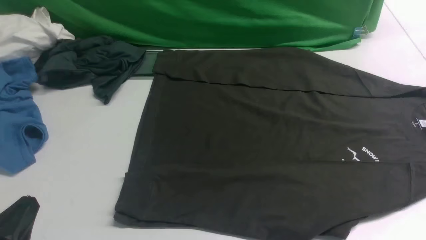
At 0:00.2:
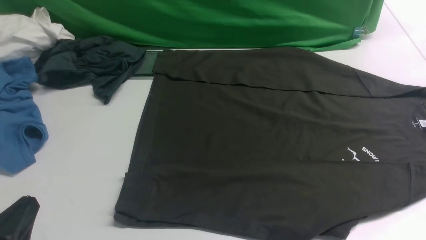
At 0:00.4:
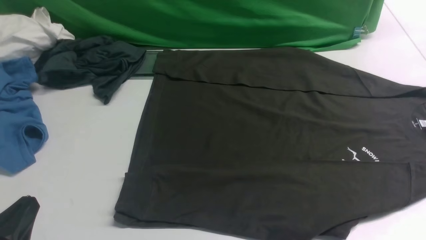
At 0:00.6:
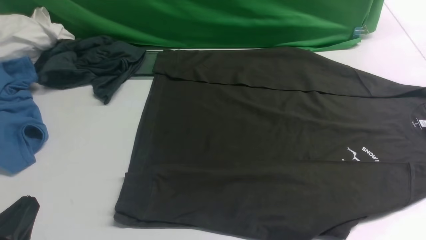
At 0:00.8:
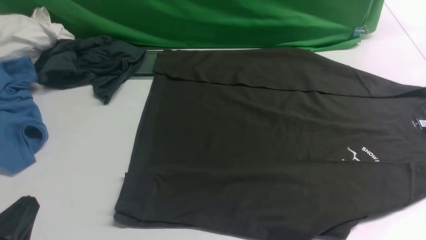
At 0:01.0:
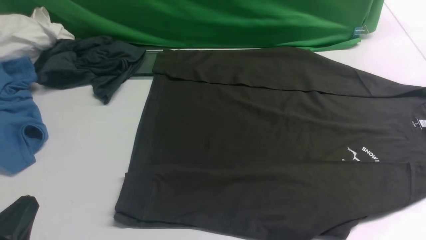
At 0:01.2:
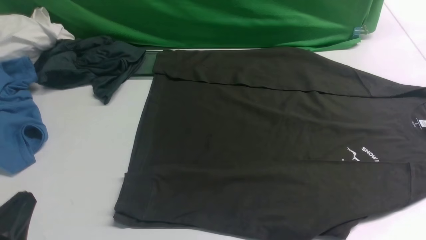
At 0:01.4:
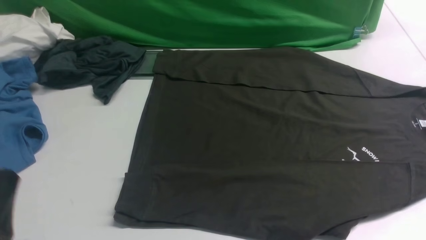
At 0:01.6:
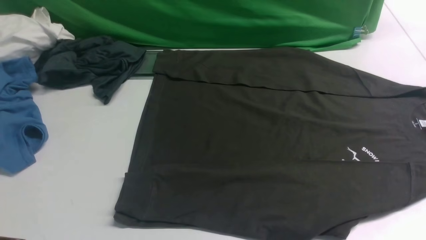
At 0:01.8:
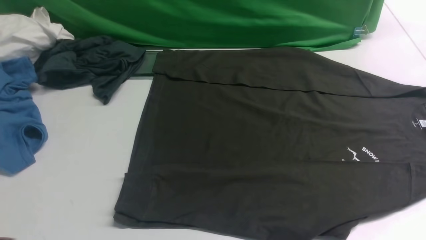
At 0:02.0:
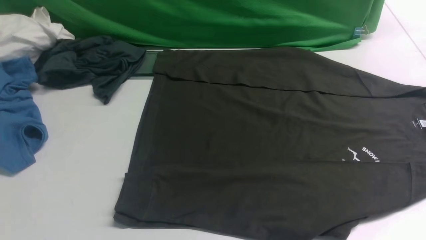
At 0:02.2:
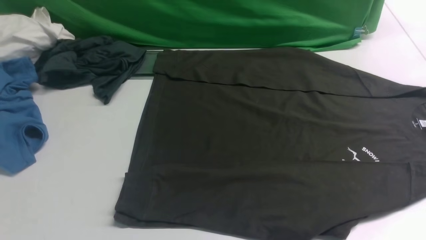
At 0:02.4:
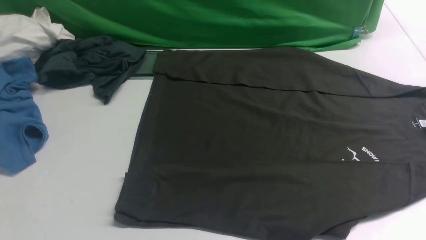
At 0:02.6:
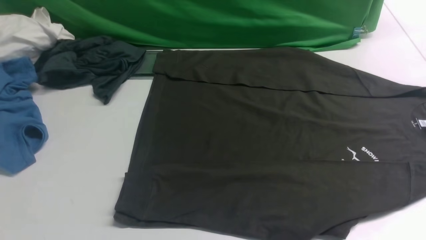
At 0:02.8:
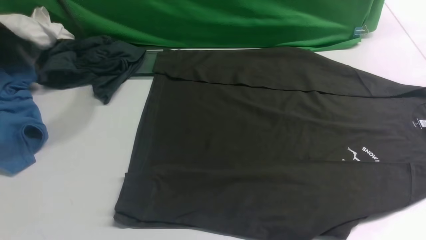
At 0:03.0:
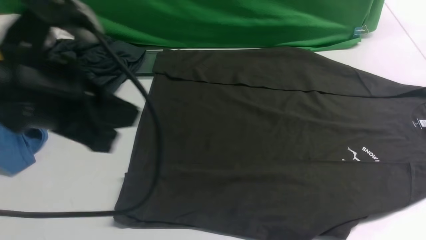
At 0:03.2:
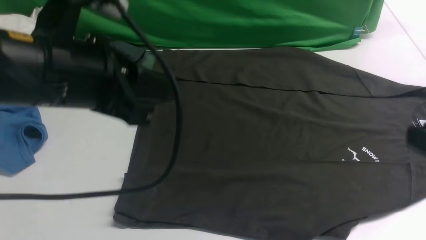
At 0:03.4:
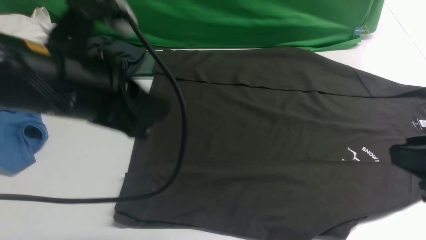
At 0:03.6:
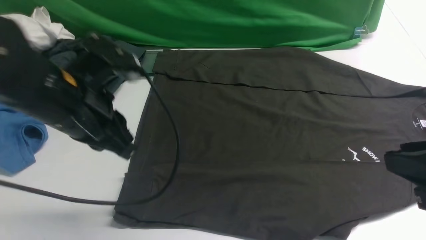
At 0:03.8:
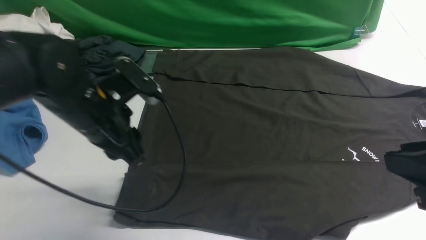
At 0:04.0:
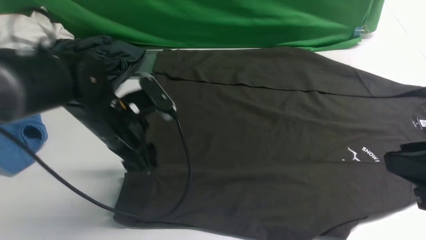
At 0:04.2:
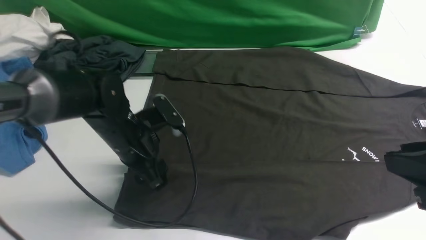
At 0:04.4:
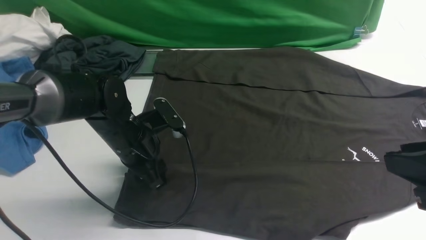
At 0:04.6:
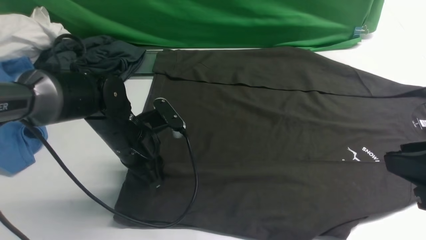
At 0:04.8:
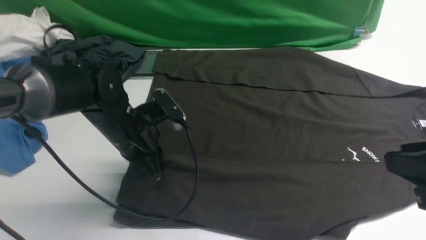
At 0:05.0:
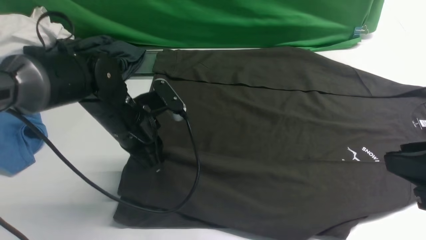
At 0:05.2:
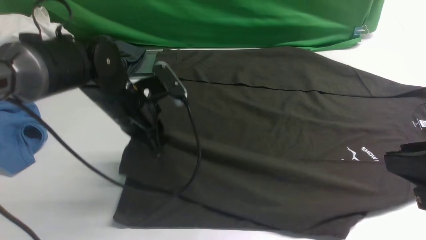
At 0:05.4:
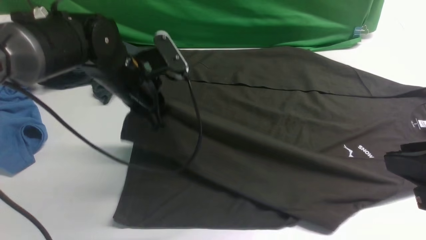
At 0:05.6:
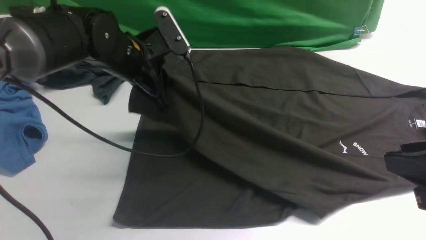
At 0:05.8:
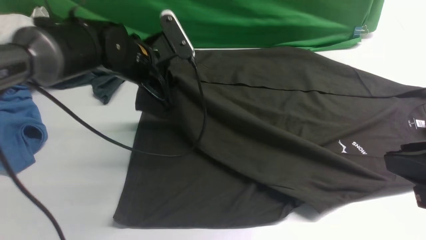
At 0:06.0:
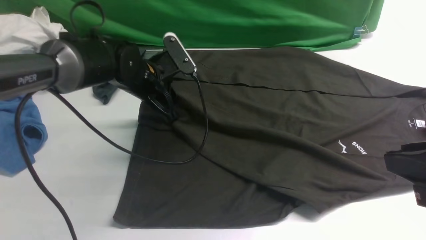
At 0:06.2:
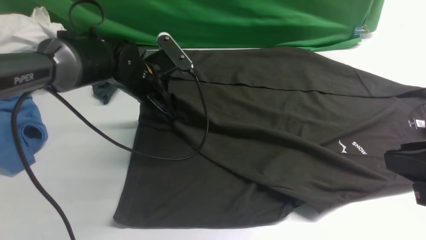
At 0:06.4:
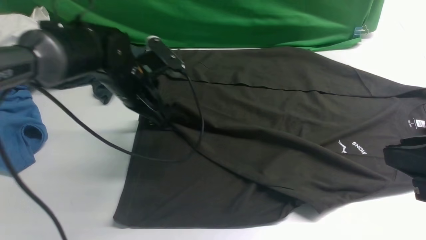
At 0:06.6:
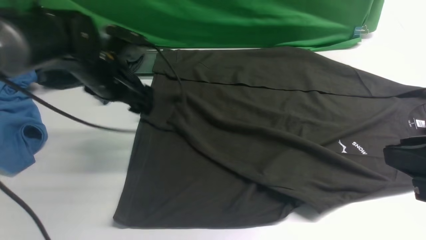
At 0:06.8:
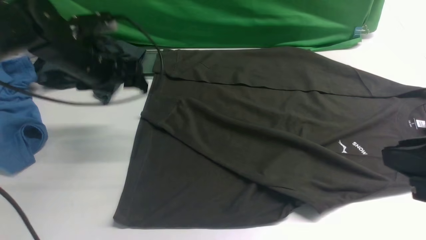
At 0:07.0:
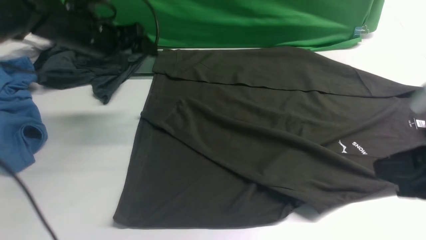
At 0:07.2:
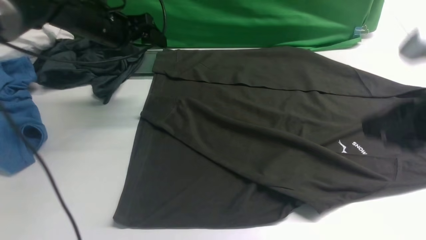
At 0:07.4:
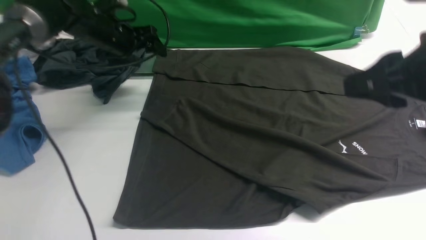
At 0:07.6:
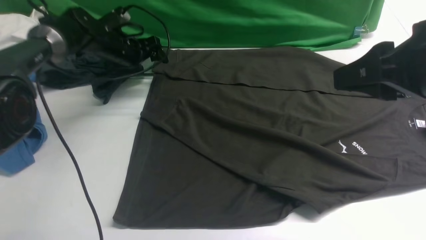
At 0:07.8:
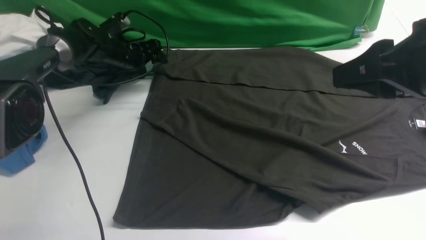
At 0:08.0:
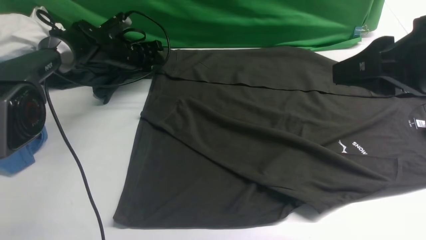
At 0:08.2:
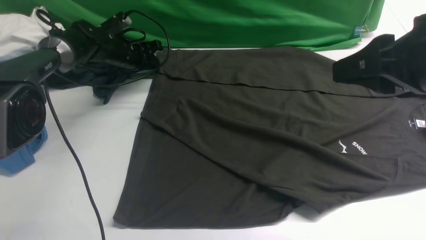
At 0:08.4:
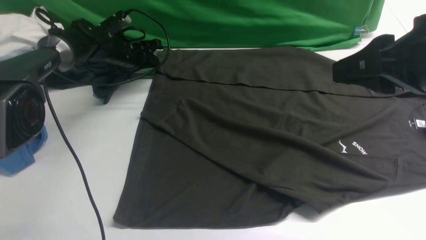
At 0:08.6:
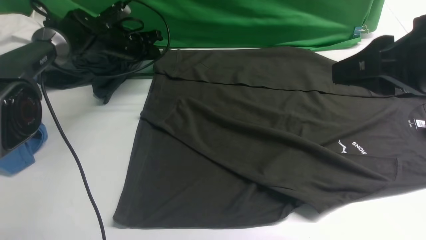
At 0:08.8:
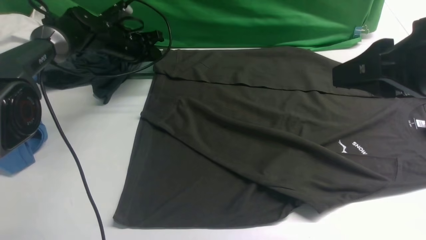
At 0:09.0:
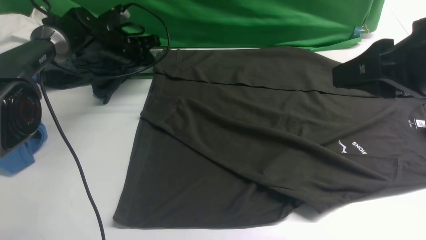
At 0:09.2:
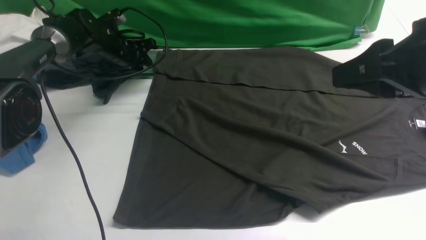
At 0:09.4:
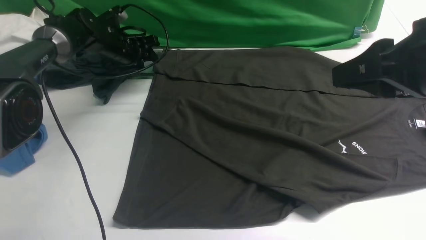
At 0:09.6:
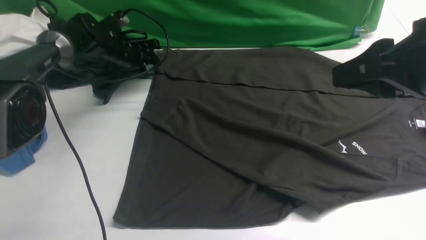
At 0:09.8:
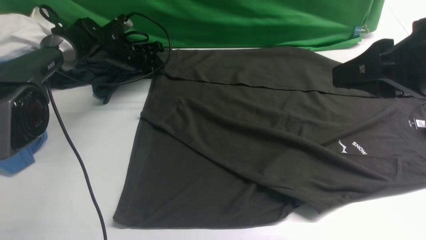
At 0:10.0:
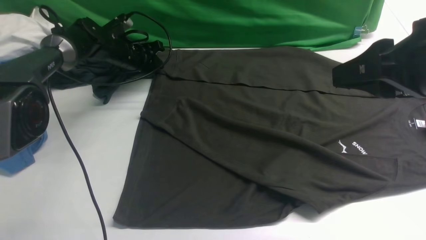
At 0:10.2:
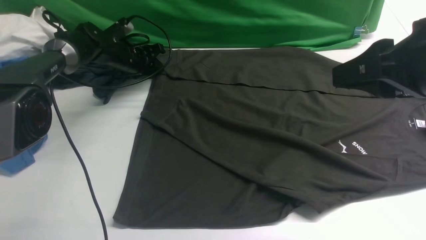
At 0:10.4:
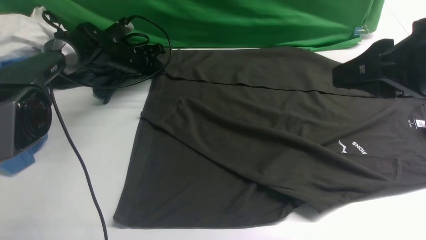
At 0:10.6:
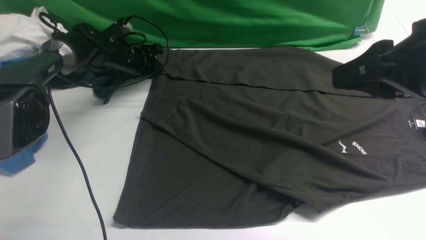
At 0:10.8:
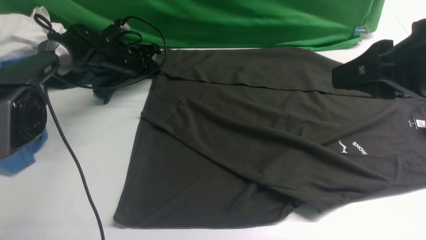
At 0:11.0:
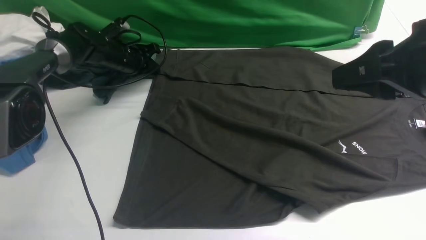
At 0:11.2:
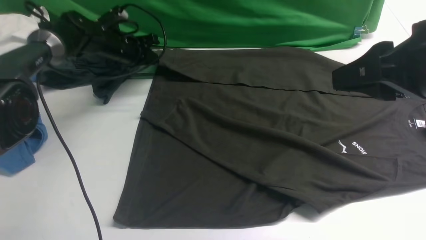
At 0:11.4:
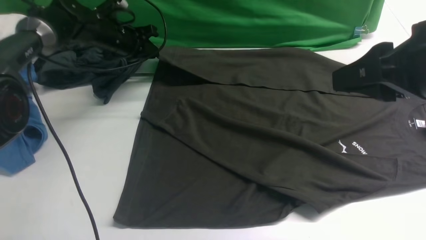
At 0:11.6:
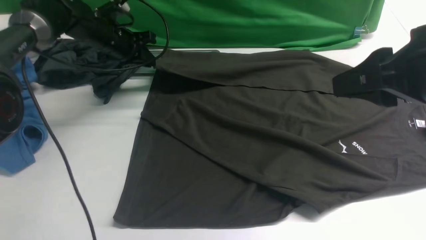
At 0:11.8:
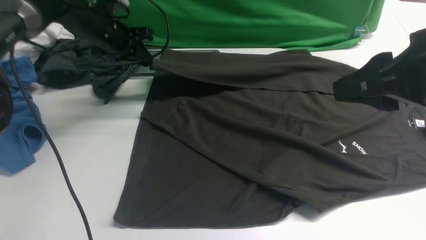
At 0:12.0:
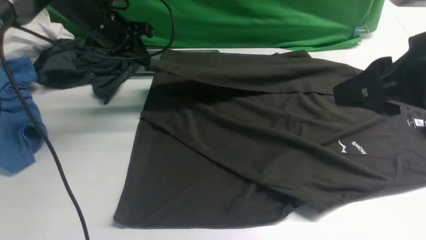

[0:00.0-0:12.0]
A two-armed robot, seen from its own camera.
Step, 0:00.0 to 0:04.8: use the left arm to clamp the cuff closest to it.
Step, 0:05.0 to 0:06.6: use the left arm to drag and place the cuff at the centered position on the left edge of the fabric.
Step, 0:06.8 to 0:11.2: use the left arm to clamp the cuff farthest from it.
0:01.6 to 0:03.0: The left gripper travels upward, forward and to the right by about 20 cm.
0:03.0 to 0:04.4: The right gripper is displaced downward by roughly 5 cm. The left gripper is displaced downward and forward by some 25 cm, and opens up.
0:04.4 to 0:06.0: The left gripper is displaced forward by roughly 10 cm.
0:06.0 to 0:07.6: The right gripper shifts approximately 10 cm forward and upward. The left gripper shifts approximately 15 cm forward and to the left, and opens its fingers.
0:07.6 to 0:09.0: The left gripper closes its fingers.
0:09.0 to 0:10.4: The grippers stay close to where they were, moving slightly.
0:10.4 to 0:12.0: The left gripper goes about 15 cm upward and backward.

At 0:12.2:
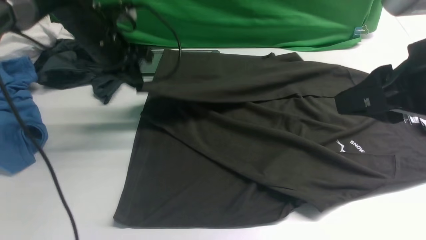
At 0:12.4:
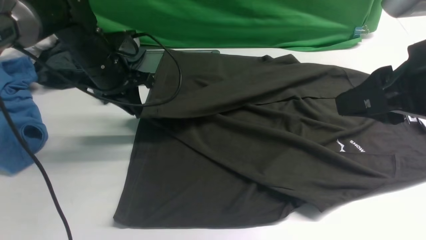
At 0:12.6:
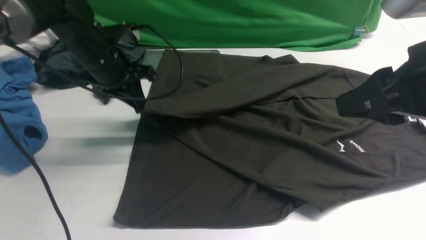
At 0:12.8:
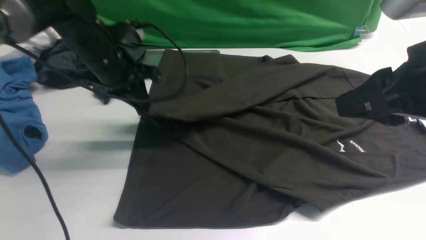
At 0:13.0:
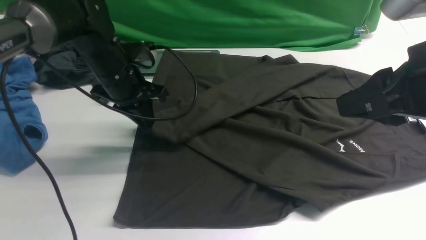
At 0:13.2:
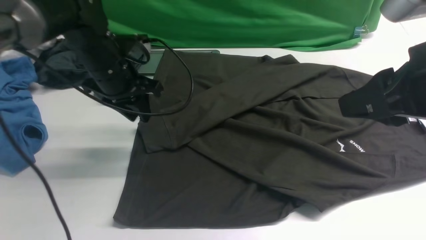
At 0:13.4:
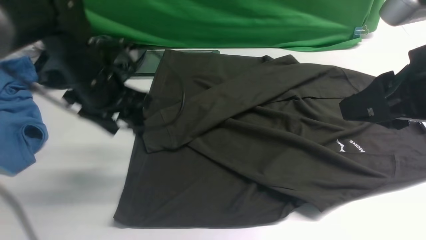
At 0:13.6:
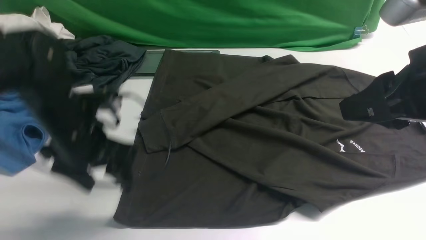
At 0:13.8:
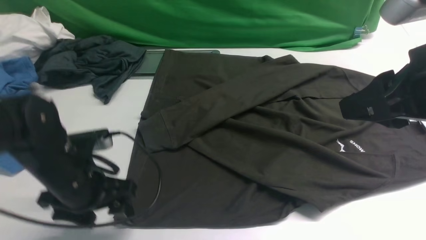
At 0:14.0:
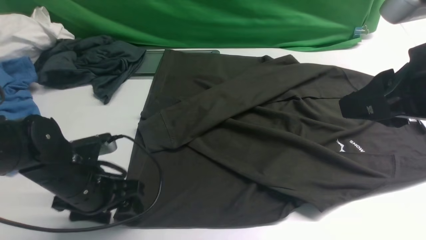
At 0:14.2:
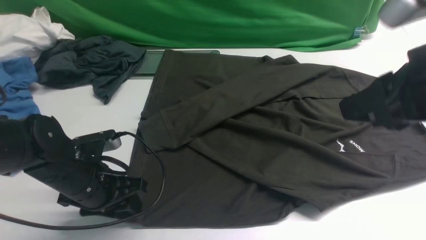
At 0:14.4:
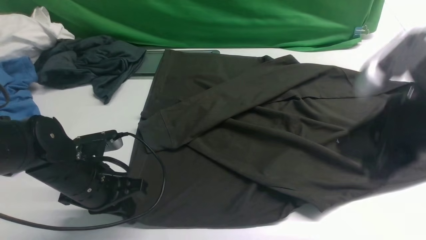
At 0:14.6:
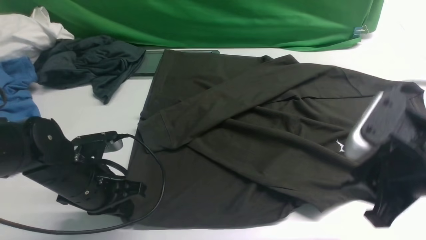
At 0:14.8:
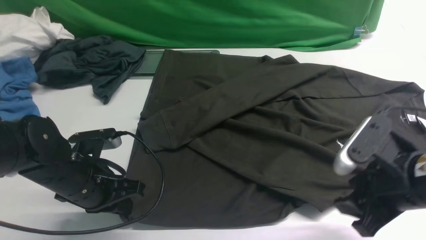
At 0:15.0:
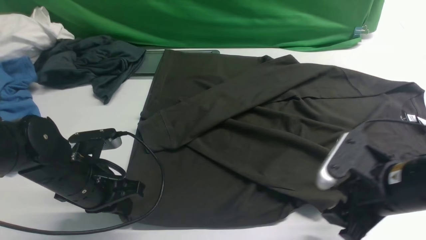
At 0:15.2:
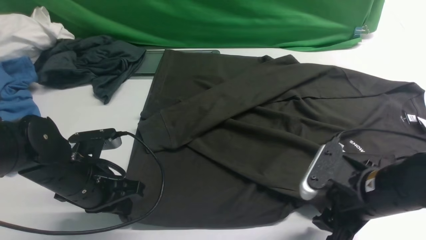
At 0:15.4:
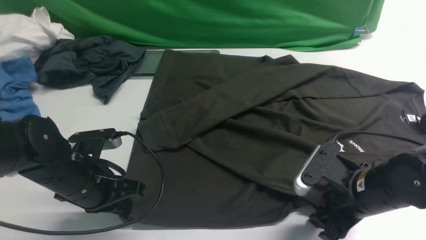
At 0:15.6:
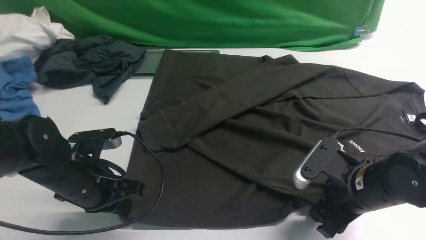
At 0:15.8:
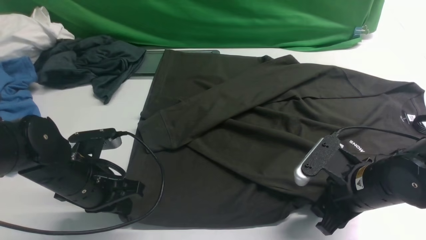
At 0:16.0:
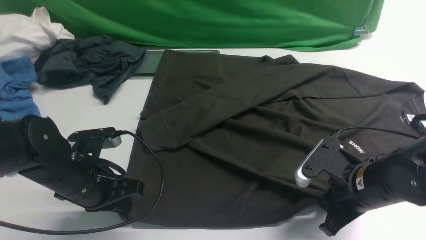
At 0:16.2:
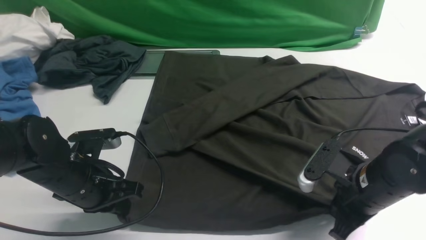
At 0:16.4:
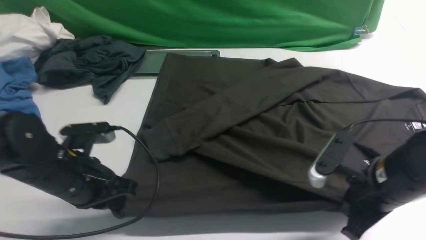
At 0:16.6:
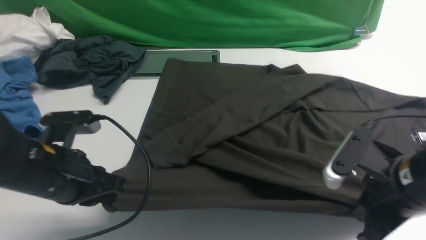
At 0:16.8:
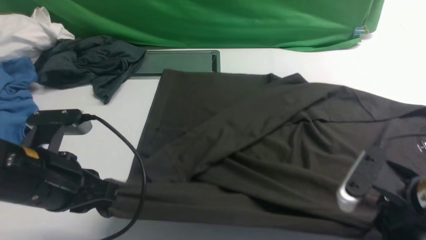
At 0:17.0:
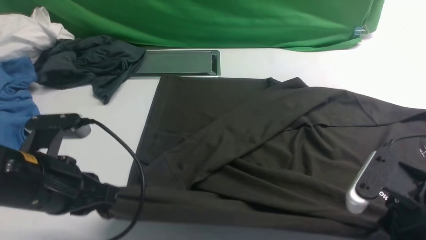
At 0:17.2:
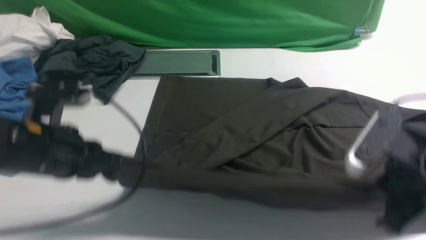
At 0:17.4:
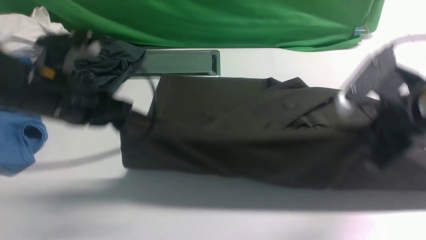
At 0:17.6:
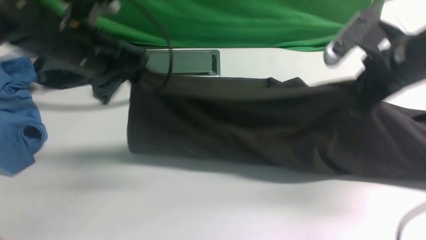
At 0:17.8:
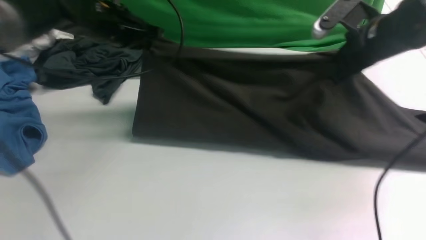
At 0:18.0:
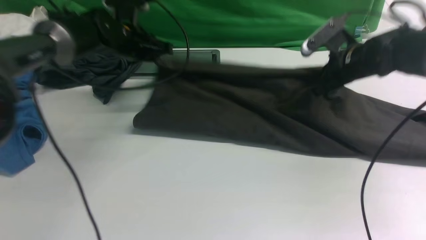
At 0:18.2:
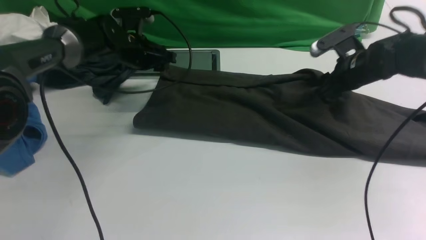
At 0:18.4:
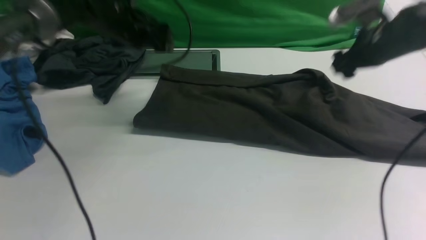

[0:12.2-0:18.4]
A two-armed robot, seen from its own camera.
Step, 0:12.2 to 0:13.4: use the left arm to drag and drop the cuff onto the cuff closest to the left arm.
Step, 0:13.6 to 0:16.4: use both arms simultaneously to clamp the lower edge of the clothing fabric.
Step, 0:16.6 to 0:18.2: use both arms to drag the lower edge of the fabric forward and fold it over the upper edge.
0:12.2 to 0:13.8: The left gripper moves backward, some 20 cm, and opens up.
0:13.8 to 0:15.4: The left gripper closes its fingers. The right gripper heads downward, covering approximately 20 cm, and opens.
0:15.4 to 0:16.8: The grippers both shift upward by roughly 5 cm. The right gripper closes its fingers.
0:16.8 to 0:18.4: Both grippers travel together forward, about 25 cm. The left gripper opens; the right gripper opens up.
